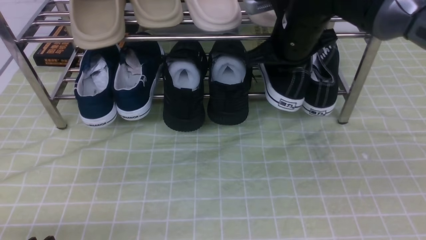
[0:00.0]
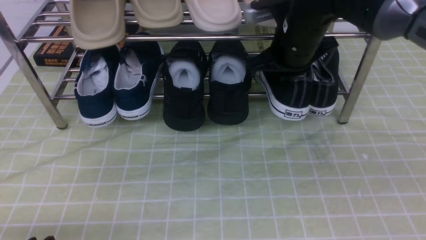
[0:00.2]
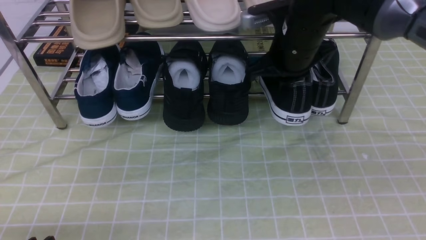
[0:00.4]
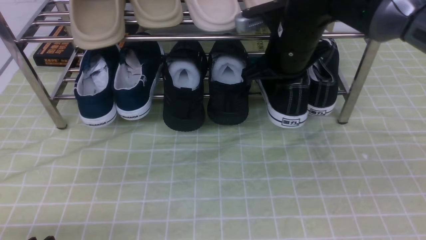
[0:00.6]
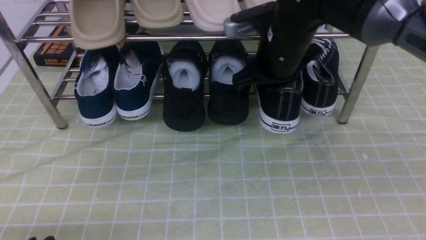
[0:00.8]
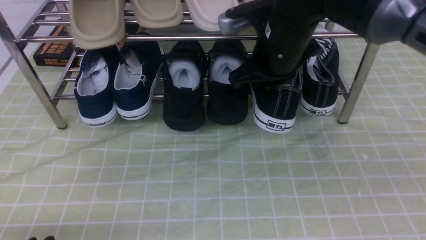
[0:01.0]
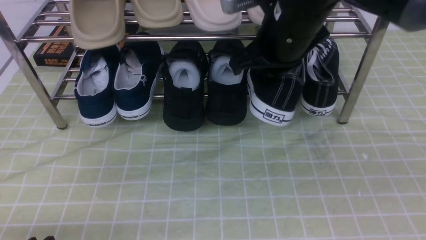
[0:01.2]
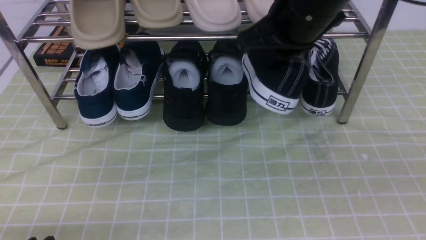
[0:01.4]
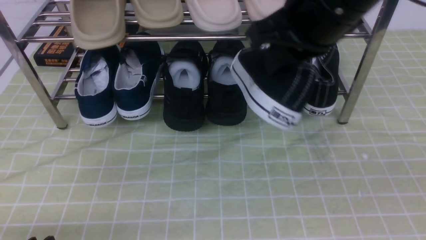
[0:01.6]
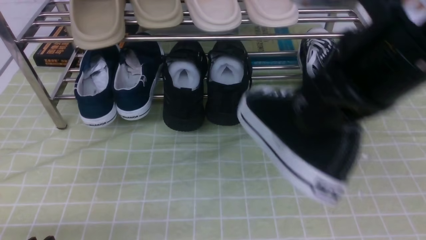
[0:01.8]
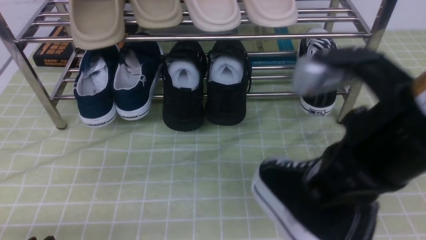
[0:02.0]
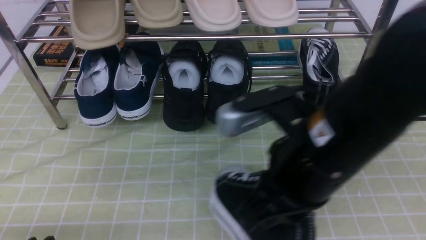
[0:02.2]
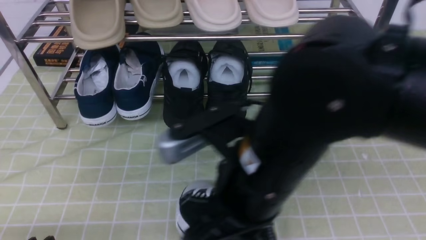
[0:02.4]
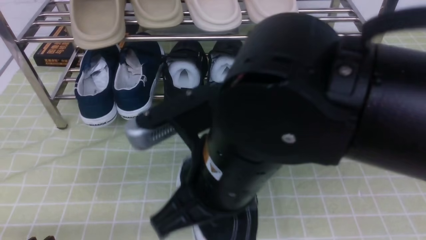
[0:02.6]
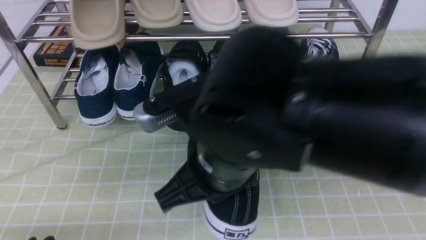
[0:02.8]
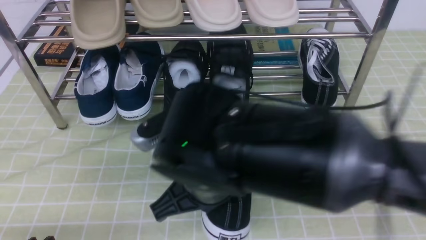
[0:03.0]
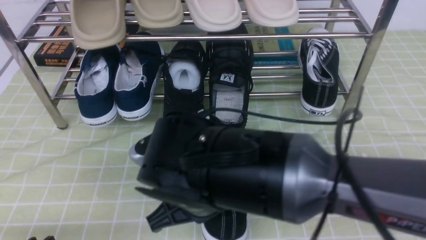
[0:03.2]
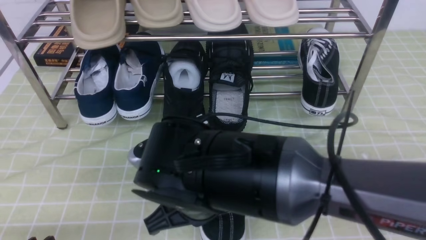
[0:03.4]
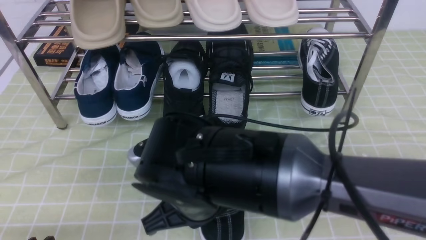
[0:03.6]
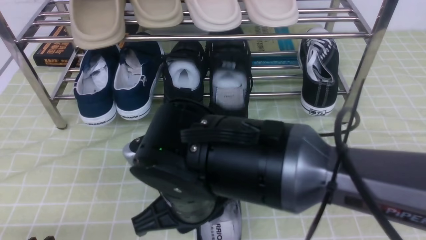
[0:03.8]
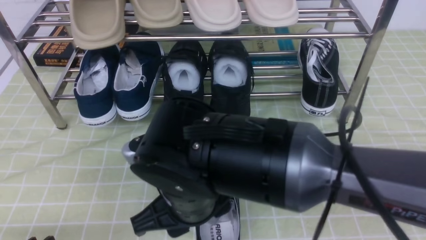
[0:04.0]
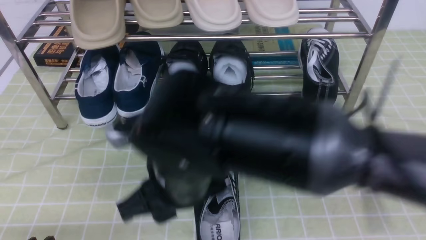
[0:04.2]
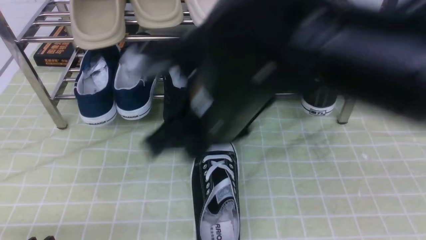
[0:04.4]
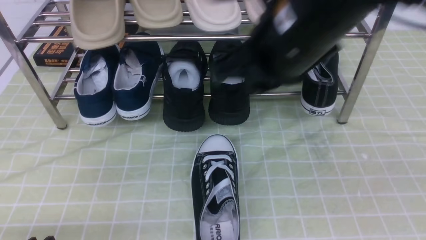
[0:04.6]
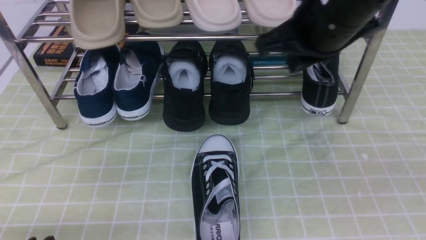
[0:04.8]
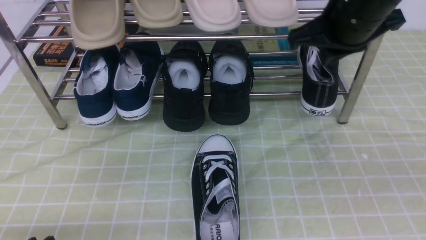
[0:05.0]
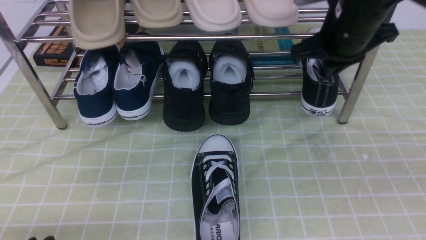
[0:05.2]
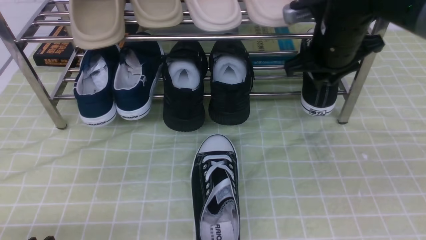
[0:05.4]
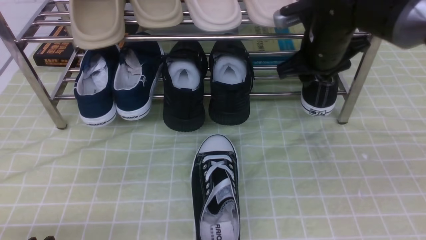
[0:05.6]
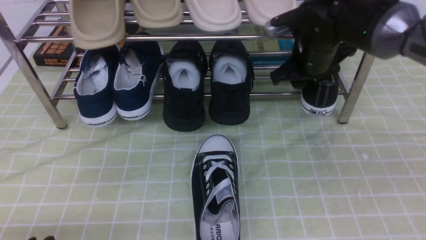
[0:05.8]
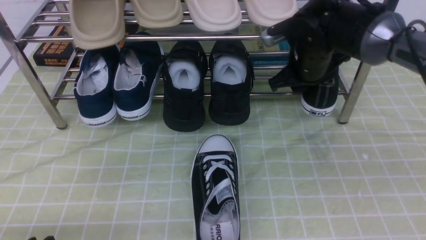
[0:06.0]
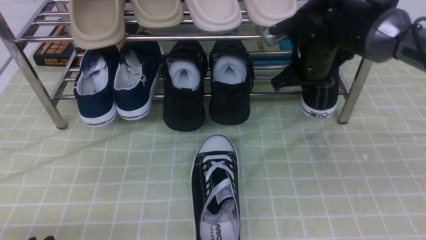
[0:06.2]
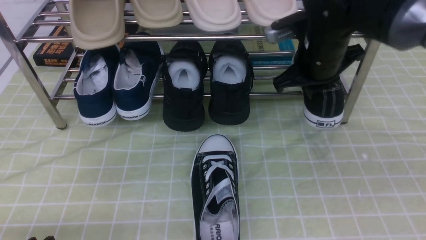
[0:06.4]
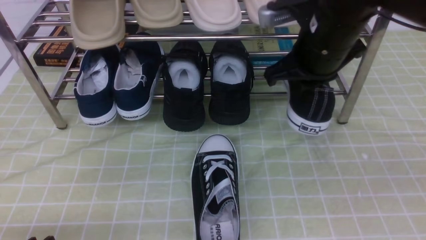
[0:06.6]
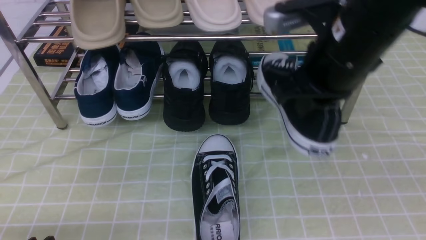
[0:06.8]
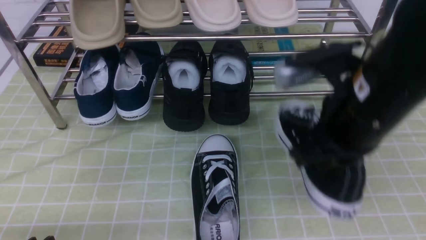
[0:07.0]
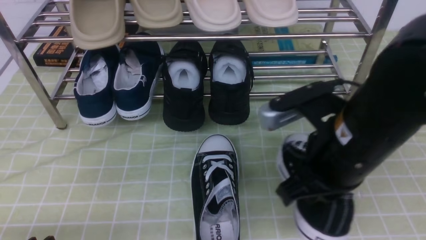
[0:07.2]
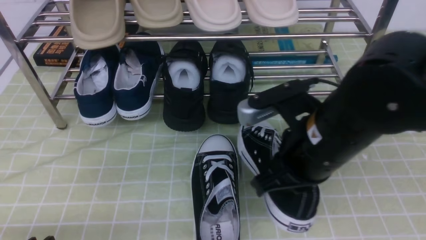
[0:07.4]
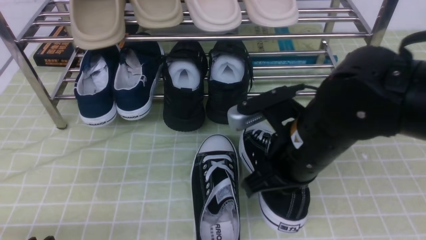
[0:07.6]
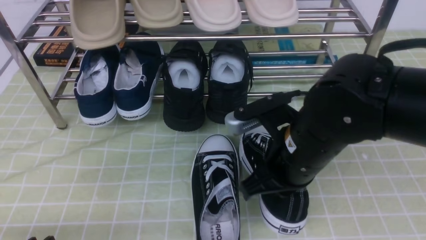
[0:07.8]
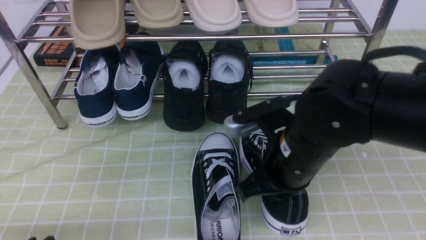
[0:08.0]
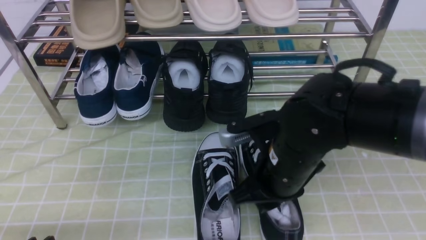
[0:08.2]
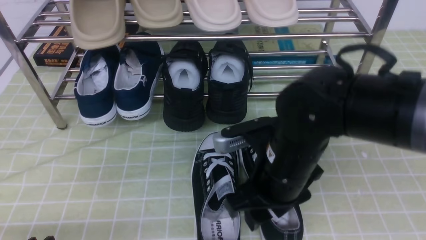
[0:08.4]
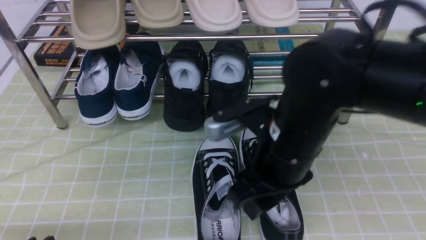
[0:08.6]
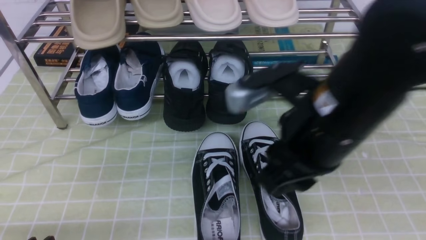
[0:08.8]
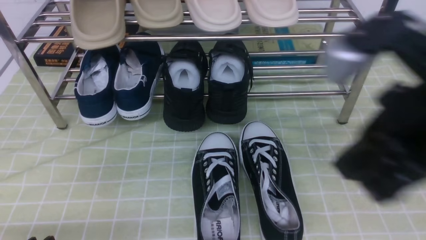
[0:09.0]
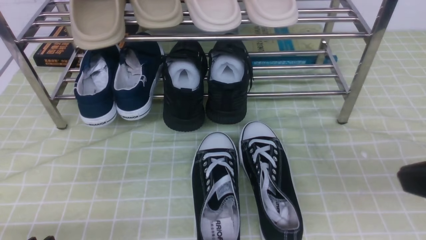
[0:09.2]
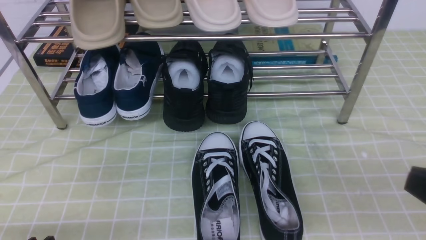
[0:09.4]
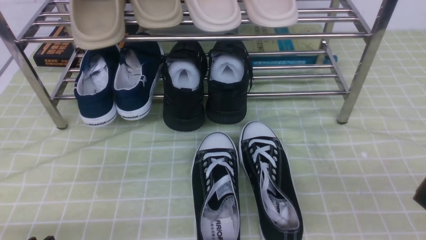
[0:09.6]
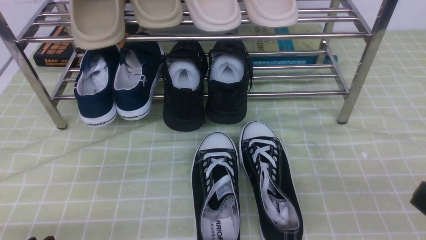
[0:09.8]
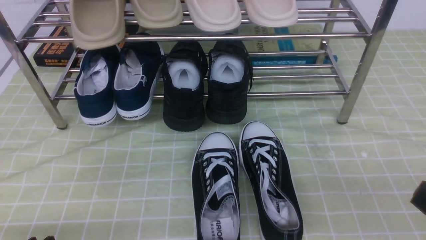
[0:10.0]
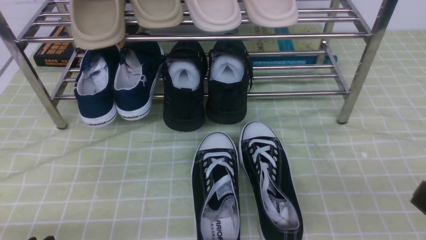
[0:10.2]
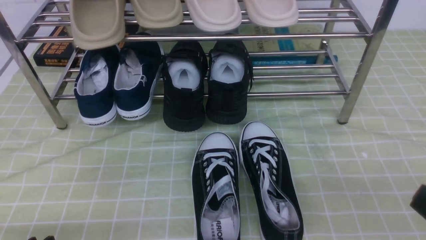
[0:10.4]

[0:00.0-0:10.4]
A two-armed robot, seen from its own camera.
Step, 0:00.2 to 0:03.8: use the right arm to take out the clamped shoe from the shoe rack and put it down.
Step, 0:04.0 to 0:06.2: use the right arm to clamp a shoe on the right side of the shoe rack.
Step, 0:06.4 to 0:08.8: use the right arm to take out the clamped shoe from the shoe rack and put it down.
0:00.0 to 0:01.4: The right gripper shifts roughly 15 cm backward and upward.
0:01.4 to 0:03.0: The right gripper moves to the left, downward and backward, about 20 cm.
0:03.0 to 0:04.4: The right gripper travels upward by about 10 cm, and opens.
0:04.4 to 0:06.0: The right gripper moves forward, to the right and downward, about 25 cm, and closes and opens again.
0:06.0 to 0:07.4: The right gripper goes about 20 cm backward, and closes.
0:07.4 to 0:09.0: The right gripper goes some 15 cm upward, backward and to the right, and opens, then closes once more.
0:09.0 to 0:10.4: The right gripper shifts about 20 cm downward, to the right and backward.

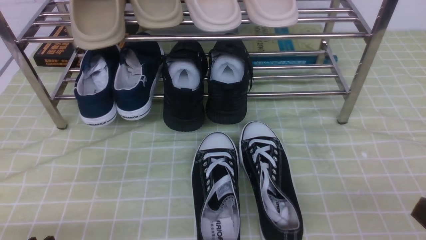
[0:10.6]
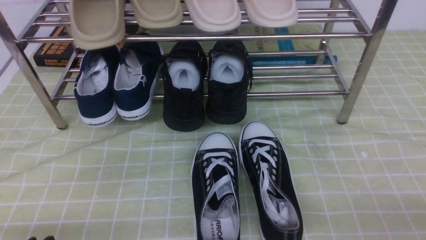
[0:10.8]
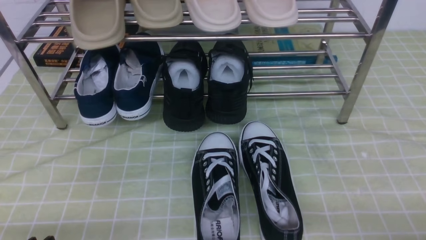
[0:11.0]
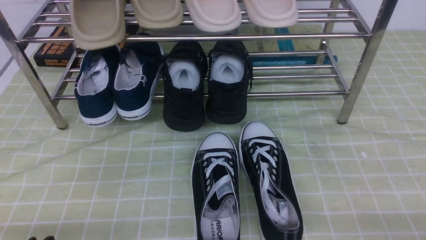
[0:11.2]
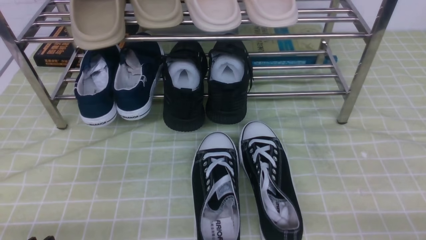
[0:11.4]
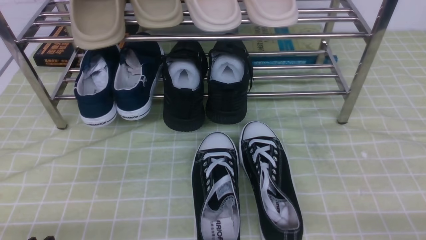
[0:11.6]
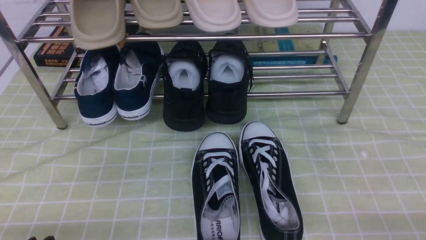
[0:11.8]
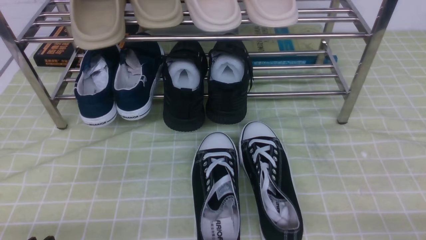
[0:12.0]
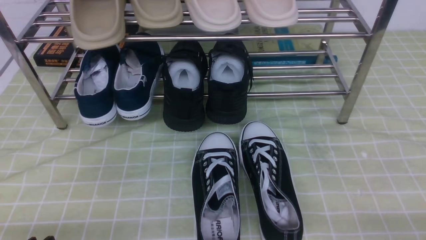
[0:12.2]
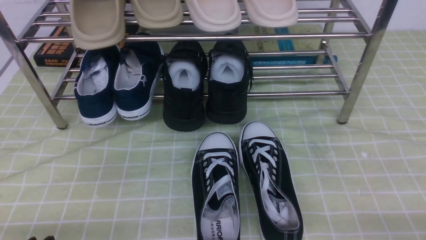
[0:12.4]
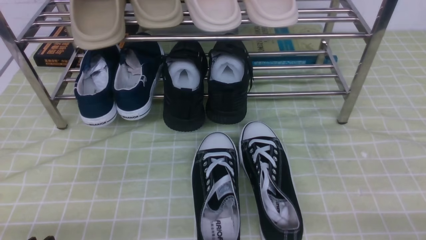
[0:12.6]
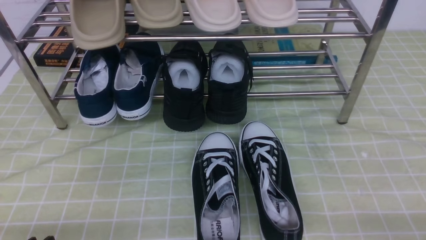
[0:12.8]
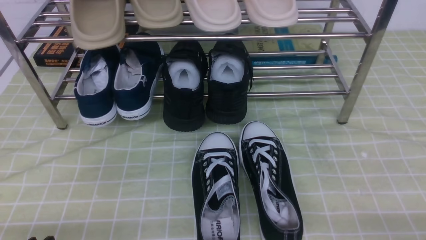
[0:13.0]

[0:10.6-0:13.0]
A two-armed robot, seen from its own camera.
0:10.6 to 0:11.8: The right gripper heads downward, covering approximately 5 cm.
0:11.8 to 0:13.0: Both grippers stay put.

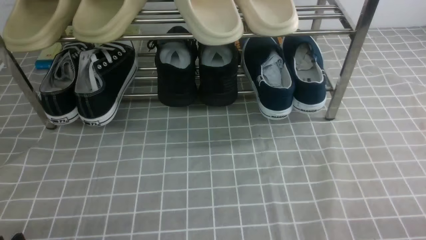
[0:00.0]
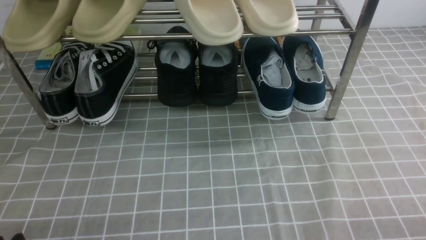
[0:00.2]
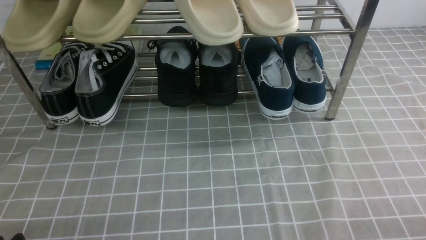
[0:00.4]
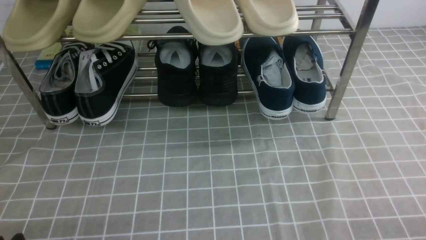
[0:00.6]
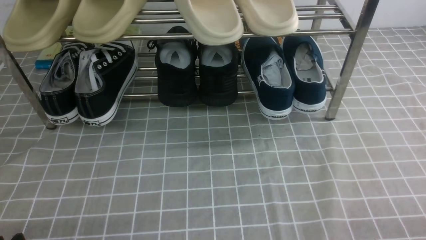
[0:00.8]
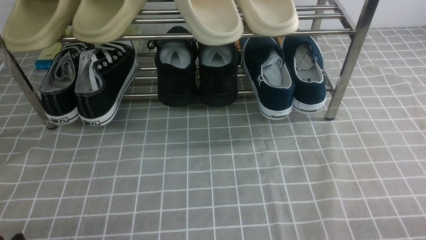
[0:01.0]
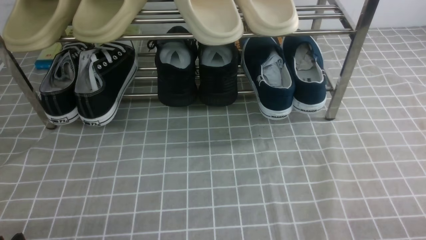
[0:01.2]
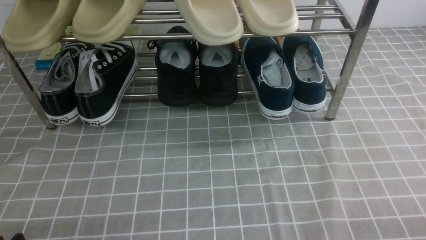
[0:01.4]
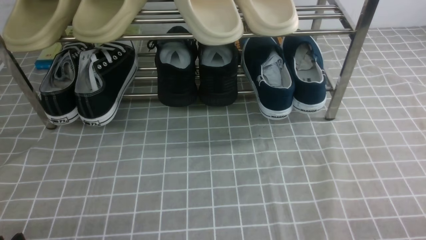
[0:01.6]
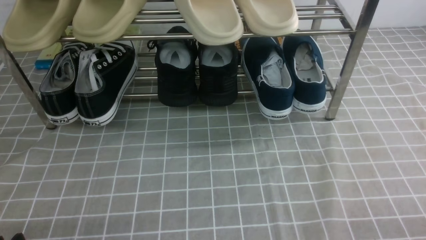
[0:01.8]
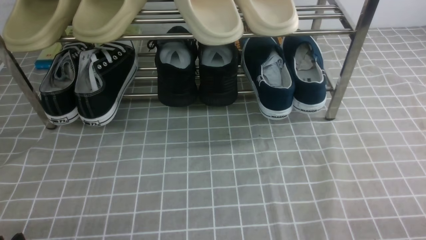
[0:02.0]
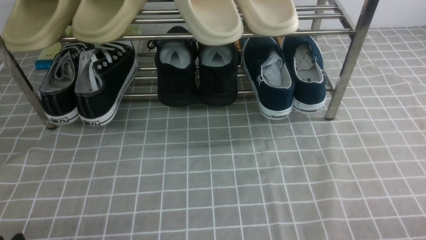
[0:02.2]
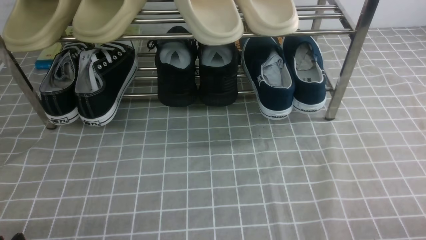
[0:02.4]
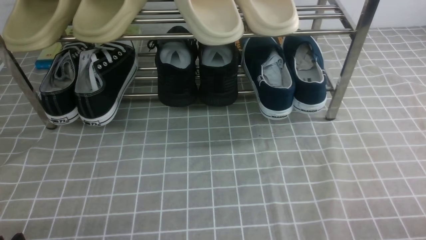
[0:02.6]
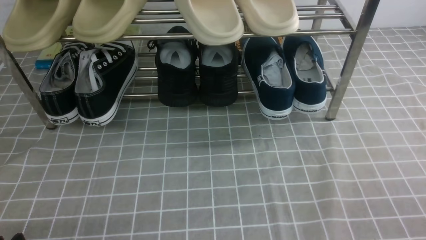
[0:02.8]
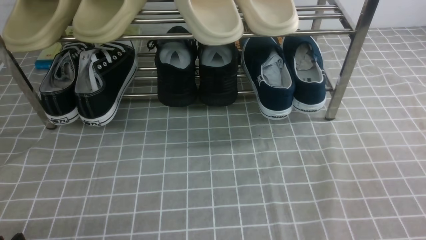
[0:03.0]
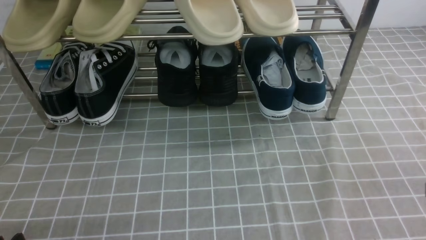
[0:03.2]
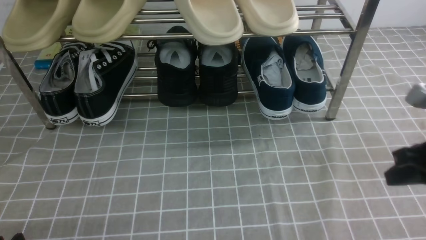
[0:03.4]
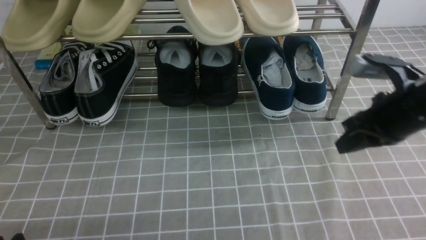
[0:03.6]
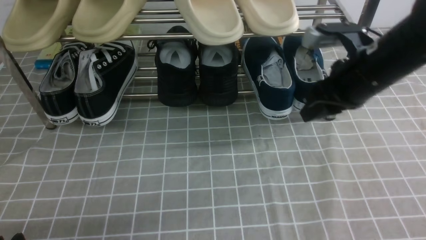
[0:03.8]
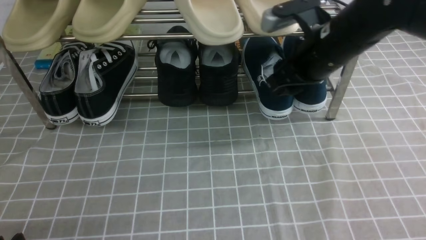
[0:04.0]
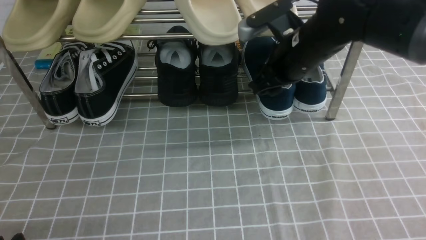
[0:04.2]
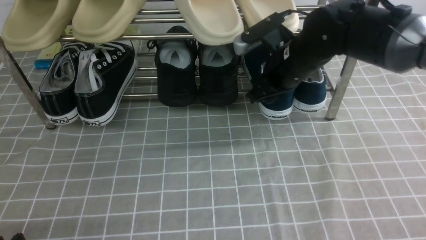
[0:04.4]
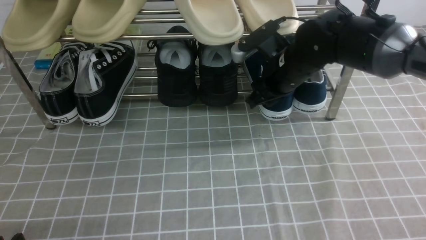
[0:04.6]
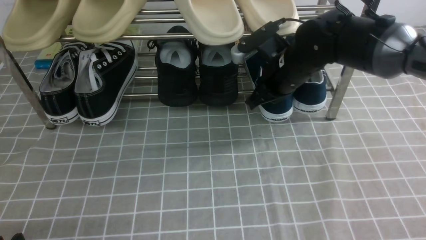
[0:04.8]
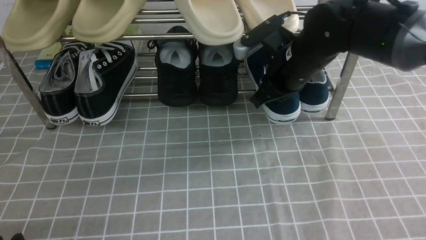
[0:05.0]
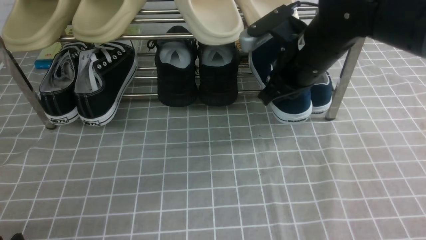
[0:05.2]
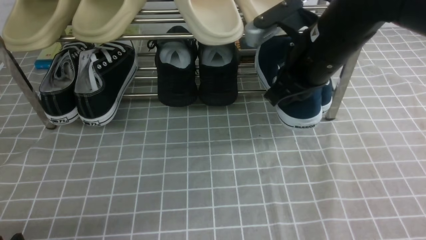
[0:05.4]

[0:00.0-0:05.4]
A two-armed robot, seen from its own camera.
Step, 0:00.0 to 0:05.0: use the right arm to clamp a shoe on the right side of the shoe rack.
0:02.8 to 0:04.0: The right gripper goes roughly 30 cm forward and to the left, and opens up.
0:04.0 to 0:05.4: The right gripper closes up.
